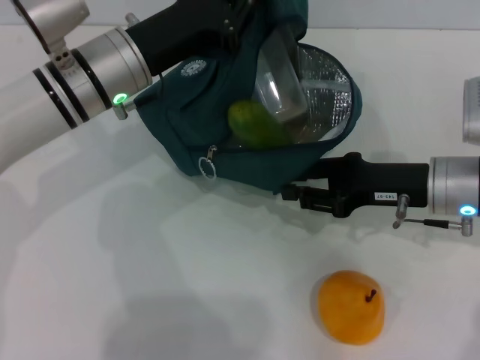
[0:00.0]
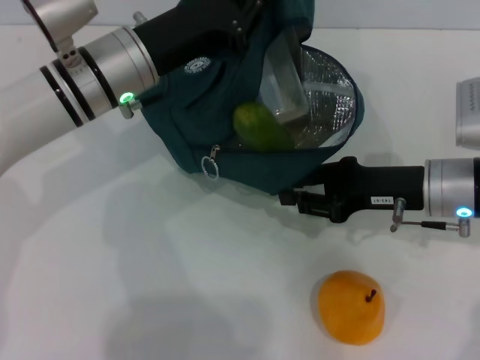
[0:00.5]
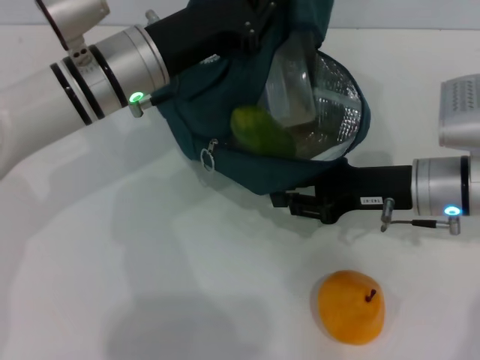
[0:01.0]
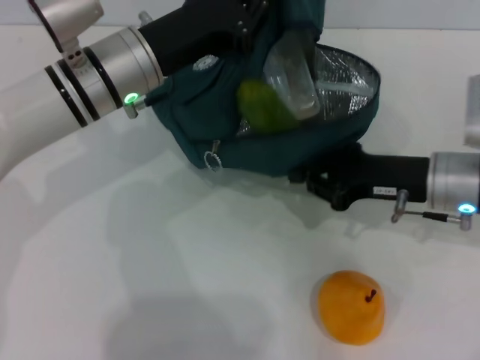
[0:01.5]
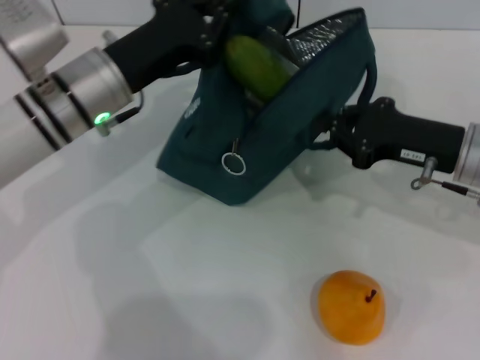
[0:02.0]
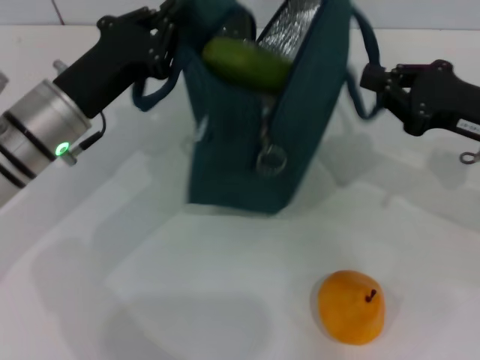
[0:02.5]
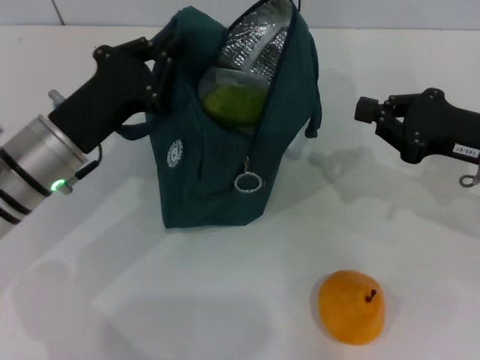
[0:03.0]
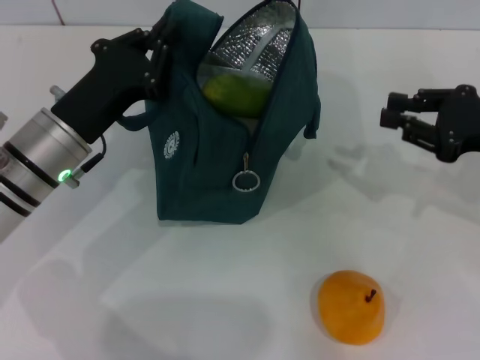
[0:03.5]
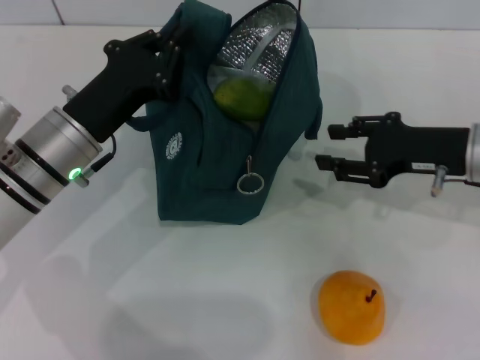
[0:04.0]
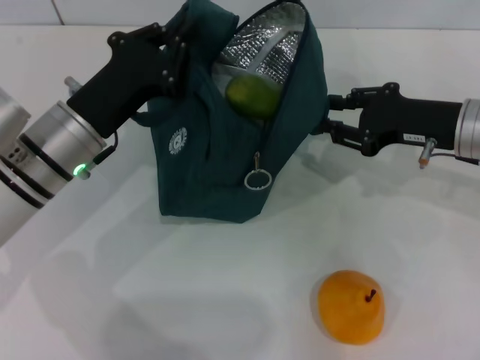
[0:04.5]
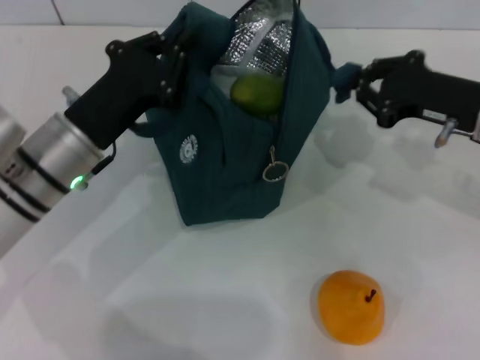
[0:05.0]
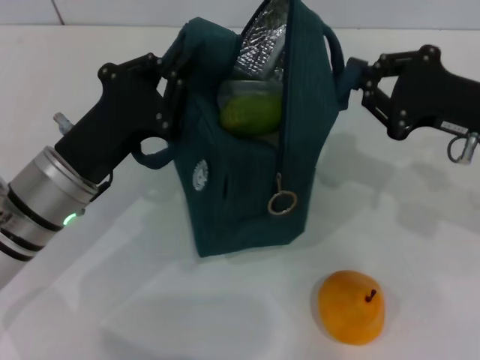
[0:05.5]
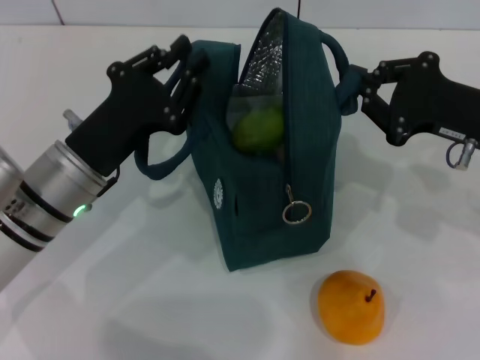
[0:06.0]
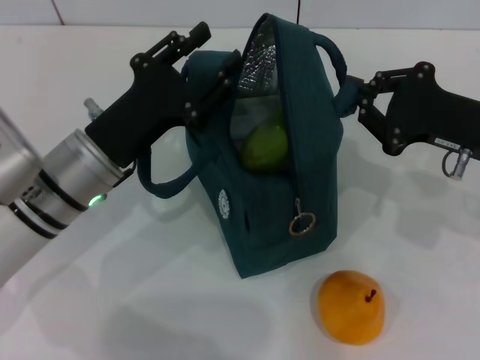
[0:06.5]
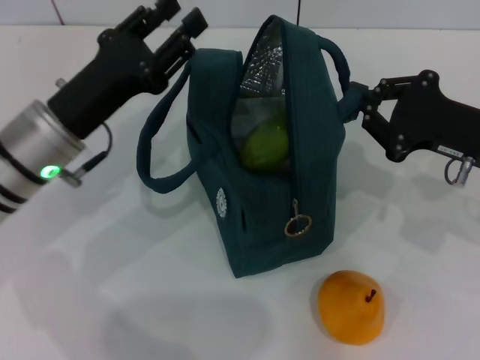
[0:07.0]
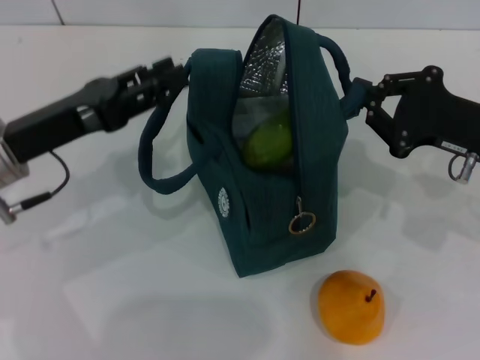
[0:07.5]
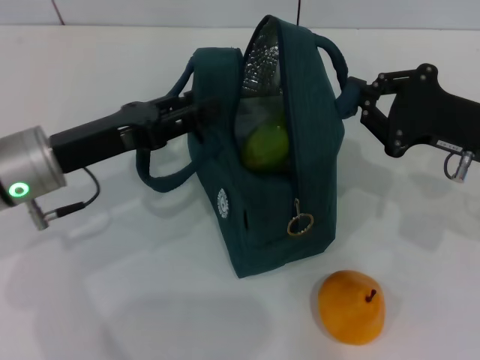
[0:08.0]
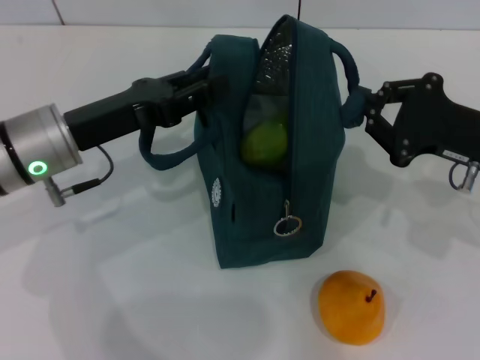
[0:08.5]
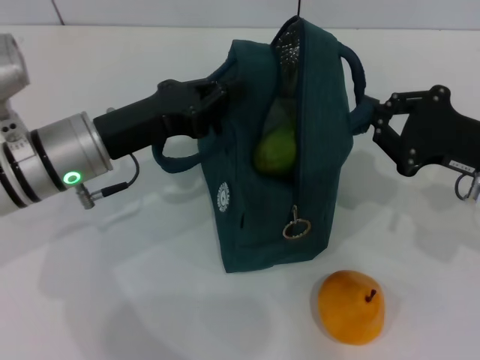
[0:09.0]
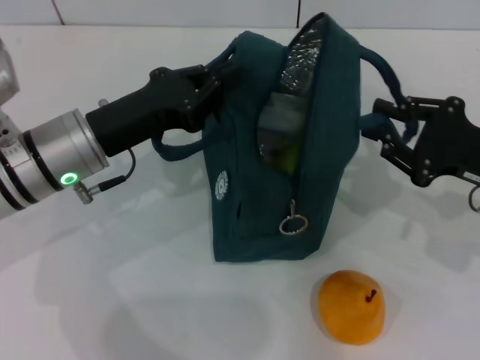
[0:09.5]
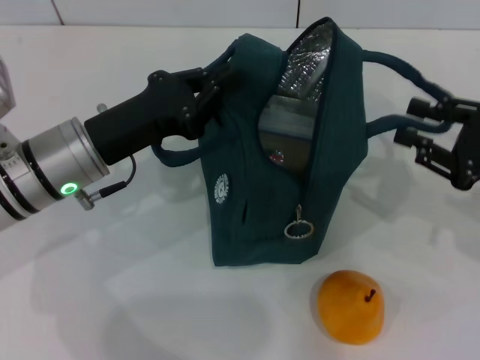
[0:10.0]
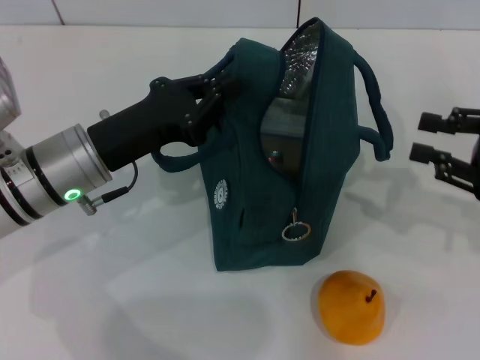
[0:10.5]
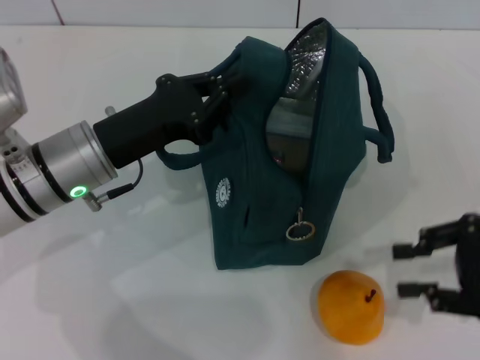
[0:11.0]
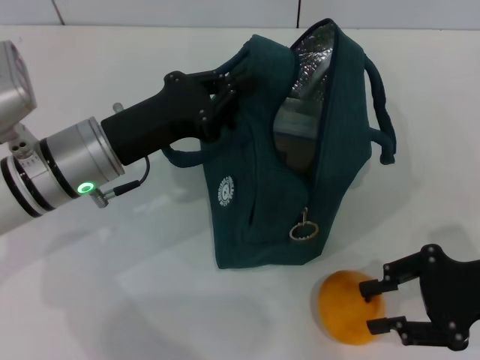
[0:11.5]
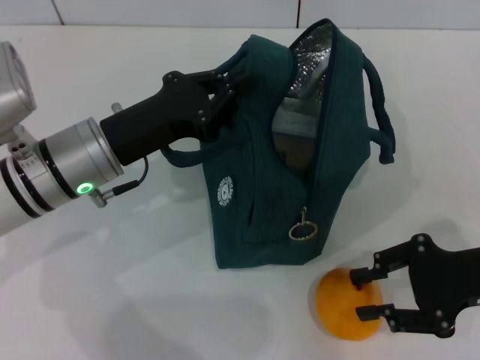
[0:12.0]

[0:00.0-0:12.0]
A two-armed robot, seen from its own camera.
0:00.0 to 0:02.0: The right gripper closes its fingers.
0:02.0 to 0:04.0: The right gripper opens up. Meanwhile the left gripper moves roughly 5 cm.
0:04.0 to 0:06.0: The right gripper closes its fingers.
0:06.0 to 0:08.0: The left gripper opens its fingers.
0:08.0 to 0:10.0: The left gripper closes; the right gripper travels to the right by approximately 5 cm, and opens.
0:10.0 to 0:12.0: The right gripper shifts by approximately 5 cm.

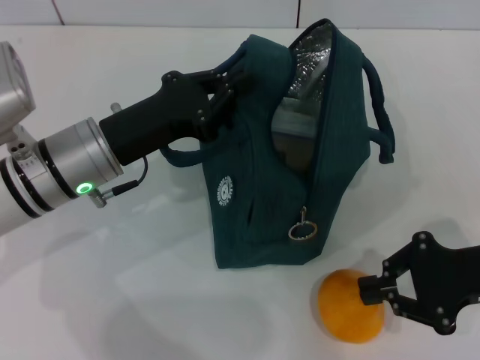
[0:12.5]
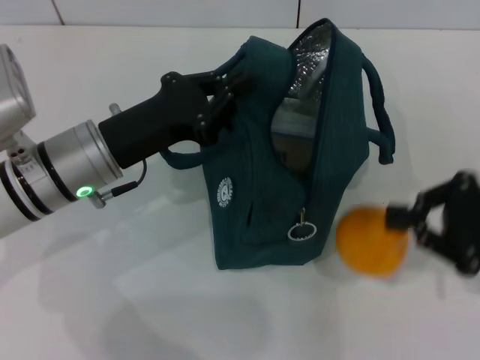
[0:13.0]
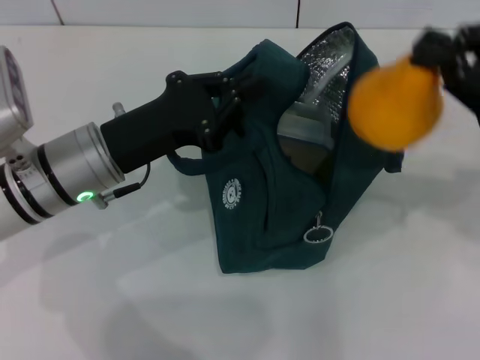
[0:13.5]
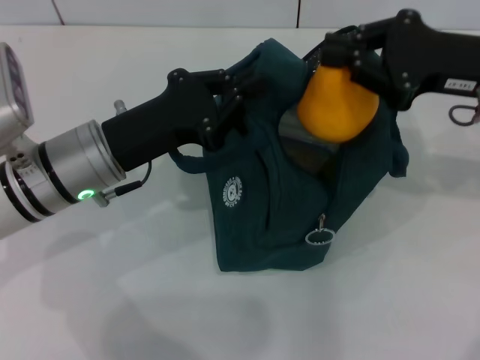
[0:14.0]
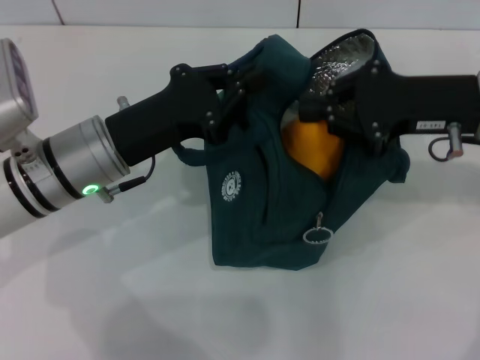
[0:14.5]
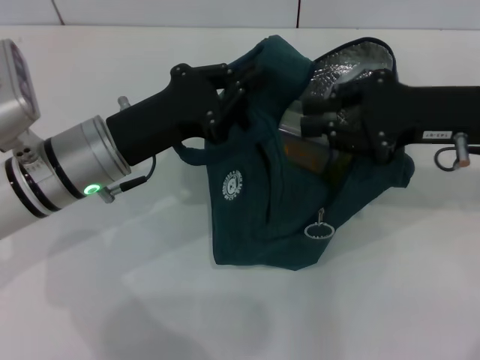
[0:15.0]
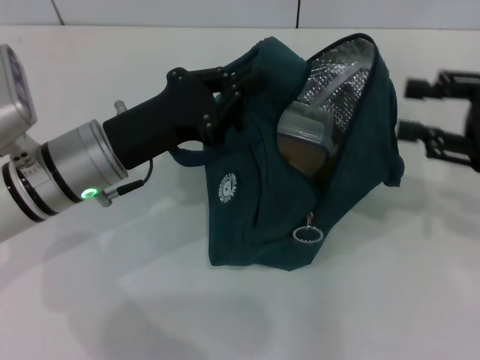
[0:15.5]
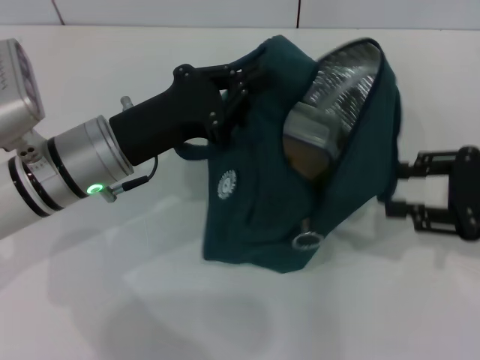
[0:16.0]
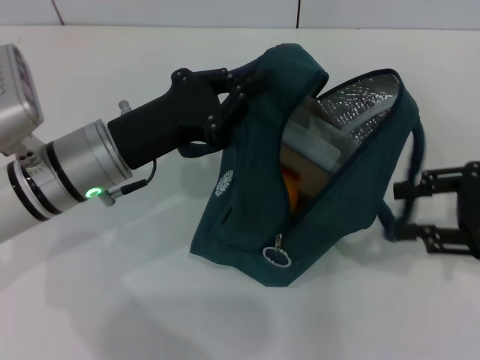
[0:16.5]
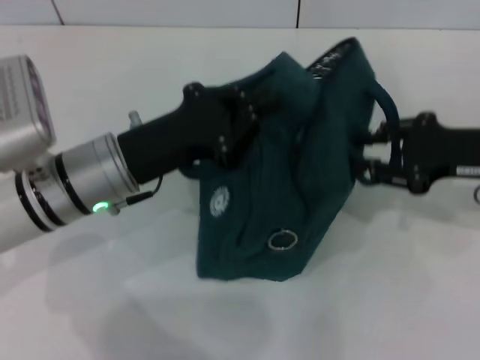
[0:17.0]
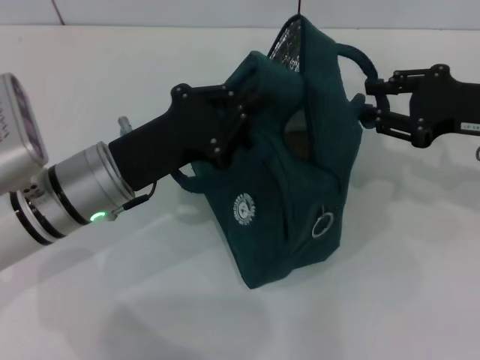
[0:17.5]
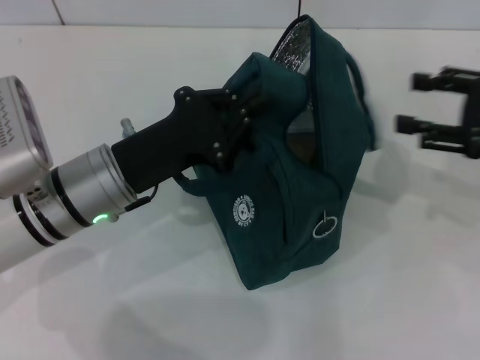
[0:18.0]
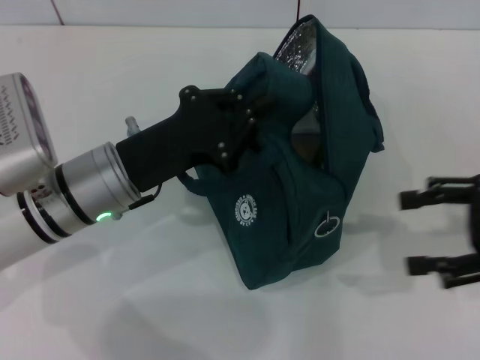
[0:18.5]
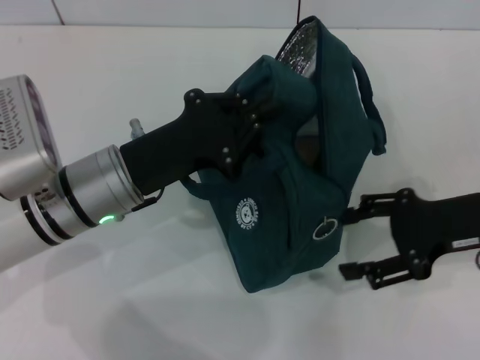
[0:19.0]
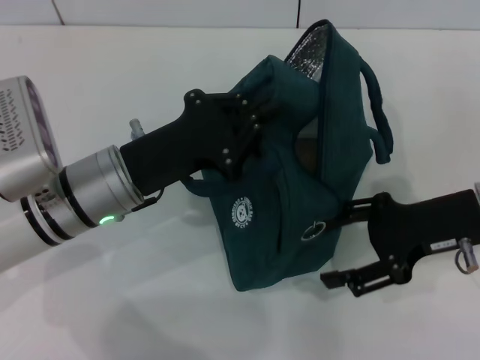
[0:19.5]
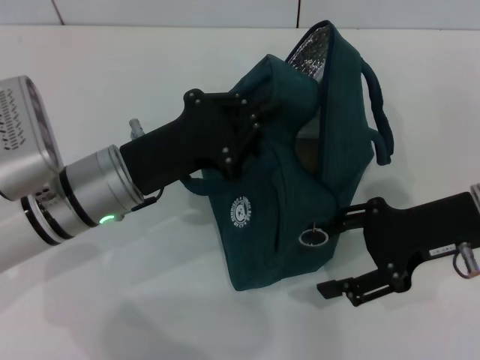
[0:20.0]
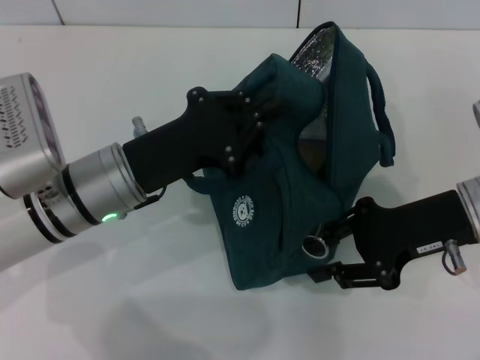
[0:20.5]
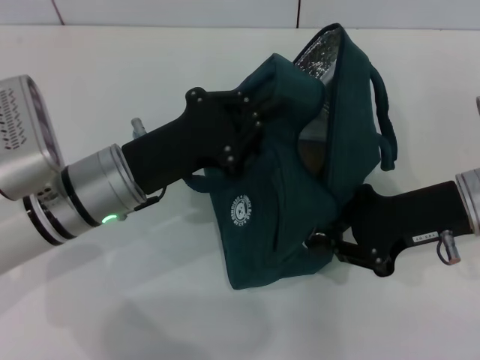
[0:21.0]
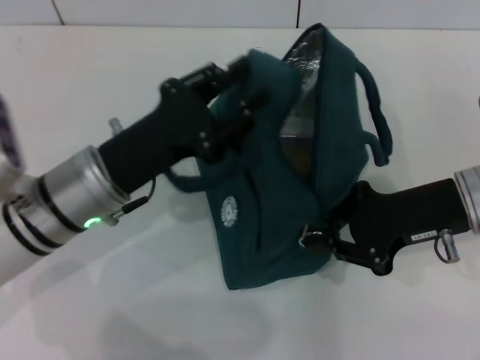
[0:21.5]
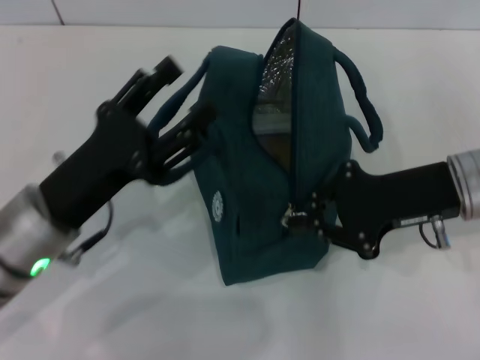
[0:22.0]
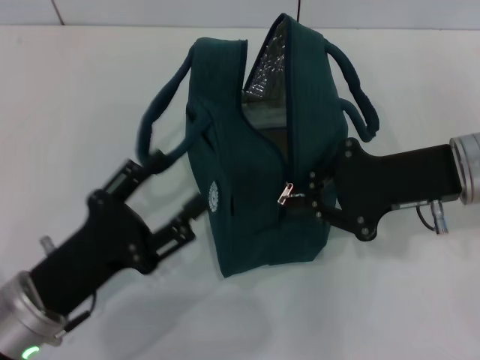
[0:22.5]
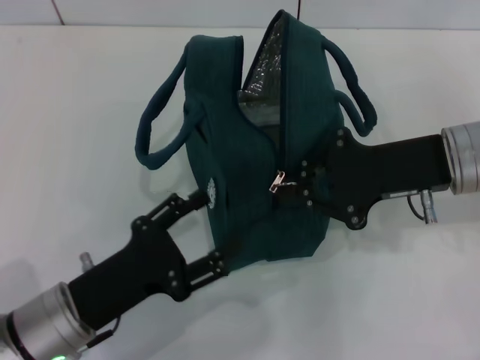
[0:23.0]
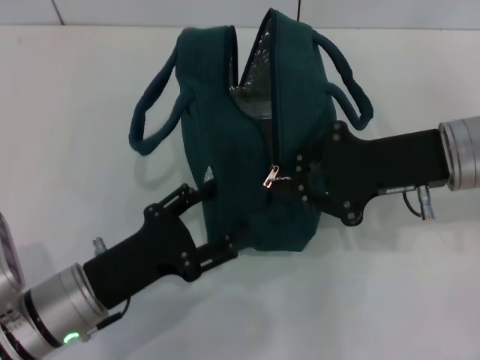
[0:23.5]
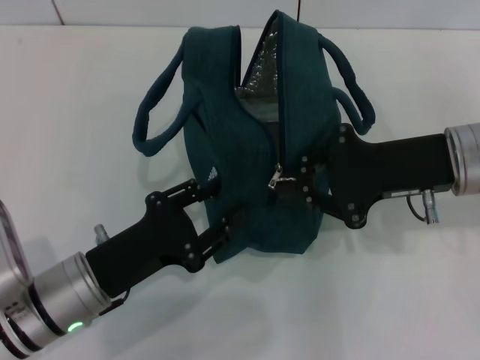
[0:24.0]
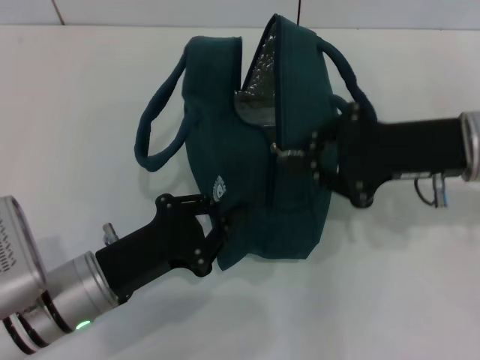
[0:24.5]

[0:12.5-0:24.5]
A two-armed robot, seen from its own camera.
Step, 0:15.5 to 0:17.5: Hold the lunch bag with your right hand.
0:12.5 to 0:14.5: The right gripper travels forward, upward and to the left by about 15 cm.
0:14.5 to 0:16.5: The right gripper heads to the right and backward, covering about 10 cm, and opens up.
0:16.5 to 0:18.5: The right gripper reaches some 5 cm forward, then returns, and opens up.
0:18.5 to 0:20.5: The right gripper moves to the left, roughly 10 cm.
0:20.5 to 0:22.5: The left gripper moves backward and to the left, about 15 cm, and opens its fingers, while the right gripper closes up.
0:22.5 to 0:24.5: The left gripper closes.

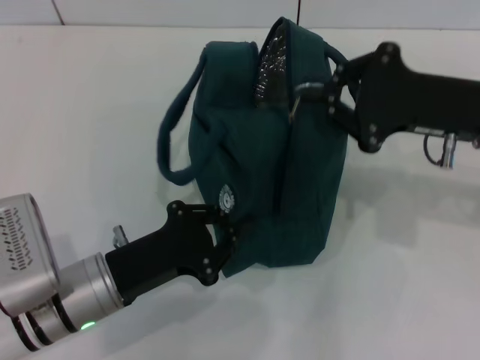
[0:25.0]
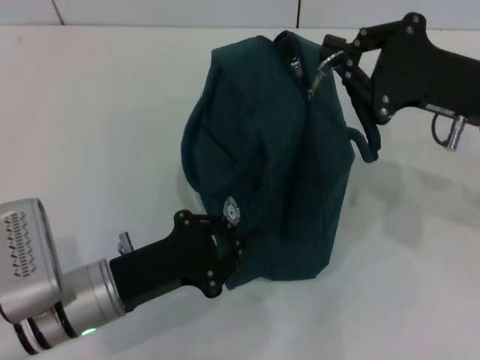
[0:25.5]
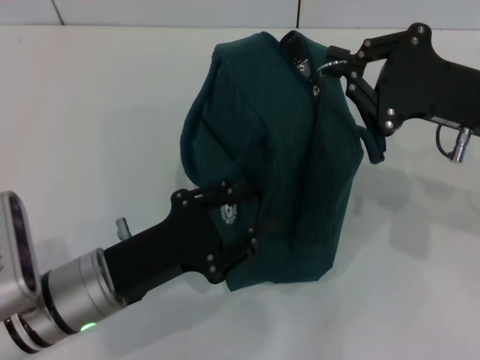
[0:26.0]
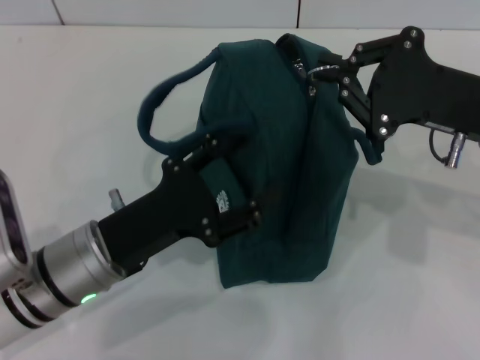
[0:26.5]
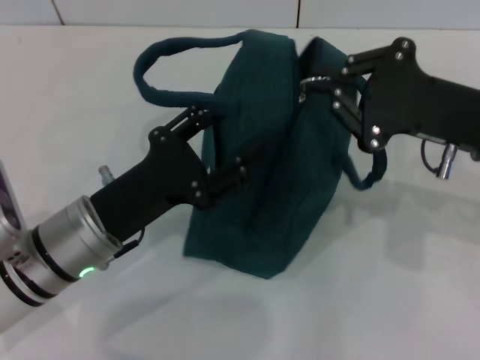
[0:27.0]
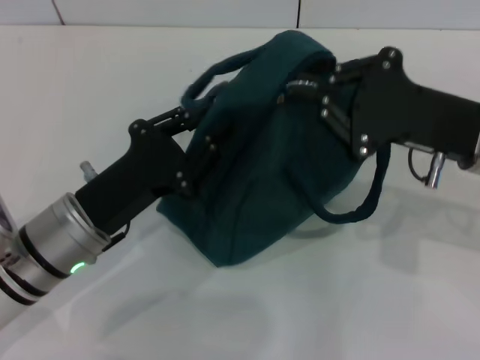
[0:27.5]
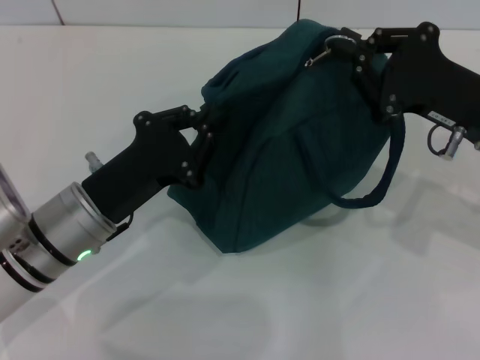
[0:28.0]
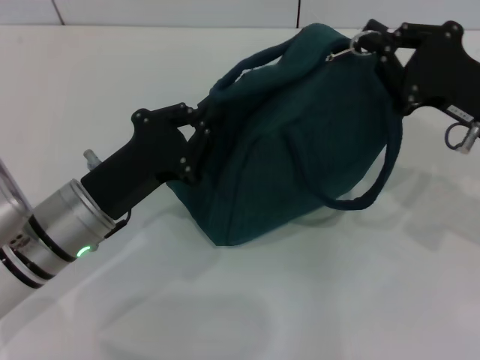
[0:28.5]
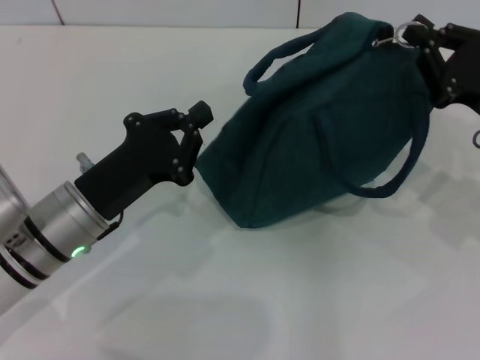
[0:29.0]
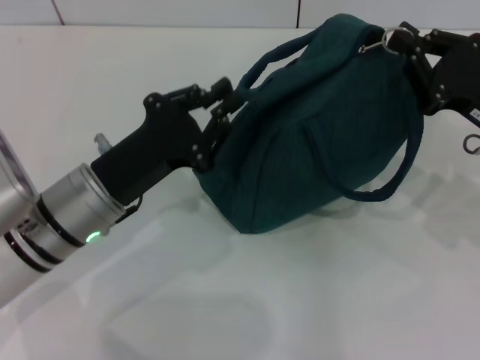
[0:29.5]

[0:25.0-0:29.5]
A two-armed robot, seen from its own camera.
0:25.0 to 0:27.0: The left gripper opens.
0:27.0 to 0:29.5: The right gripper ends up roughly 5 cm from where it was, while the left gripper closes.
